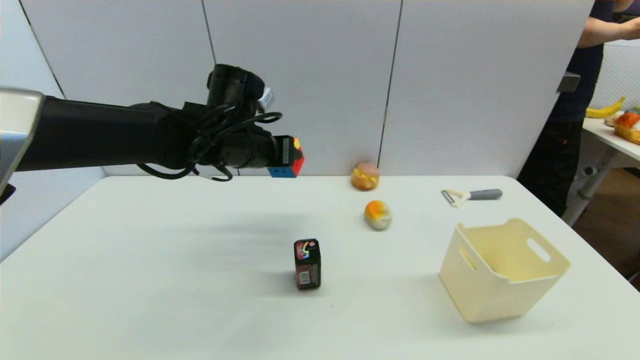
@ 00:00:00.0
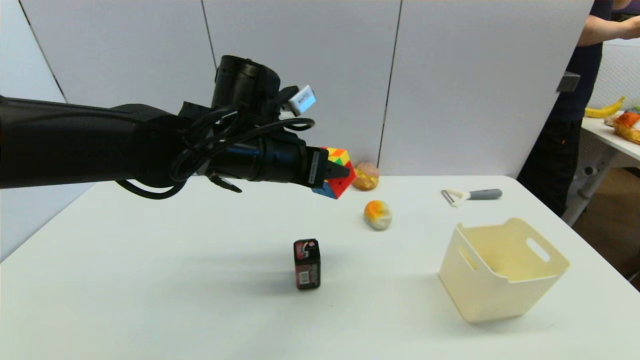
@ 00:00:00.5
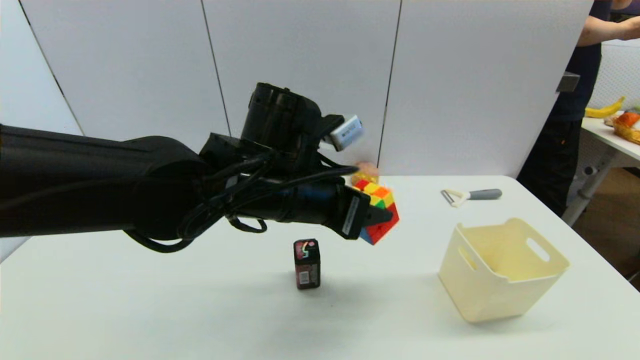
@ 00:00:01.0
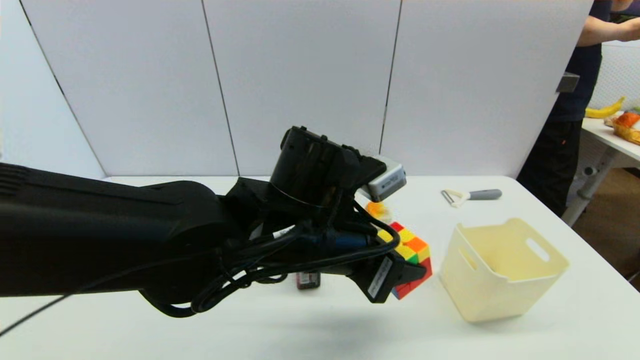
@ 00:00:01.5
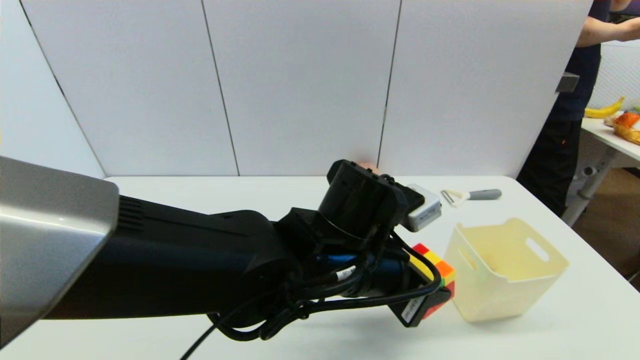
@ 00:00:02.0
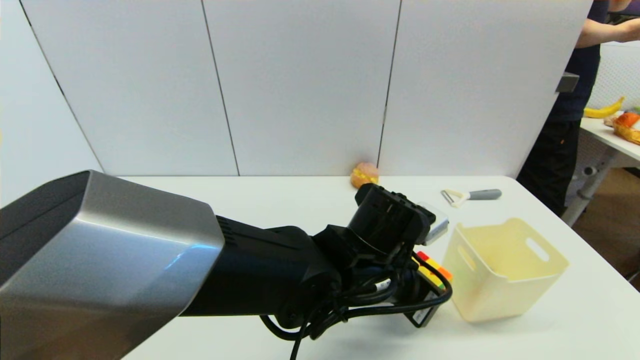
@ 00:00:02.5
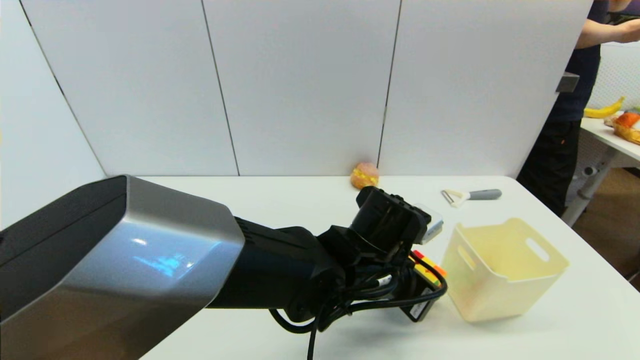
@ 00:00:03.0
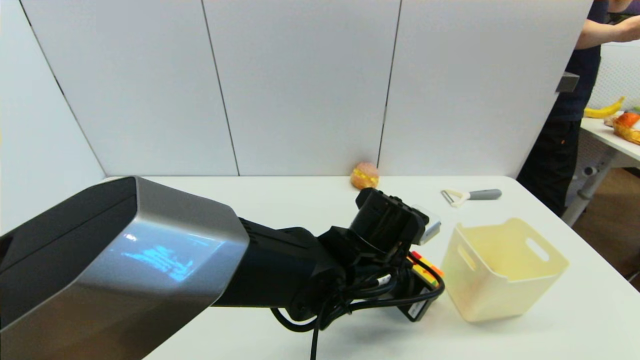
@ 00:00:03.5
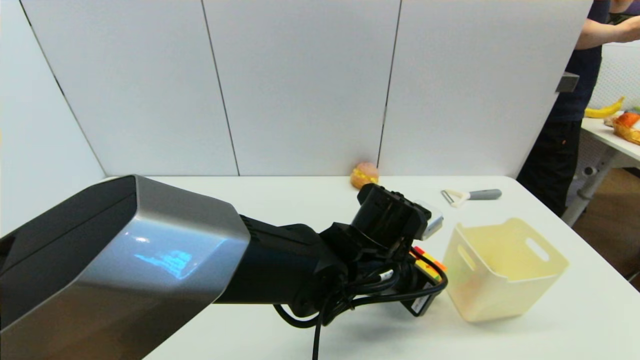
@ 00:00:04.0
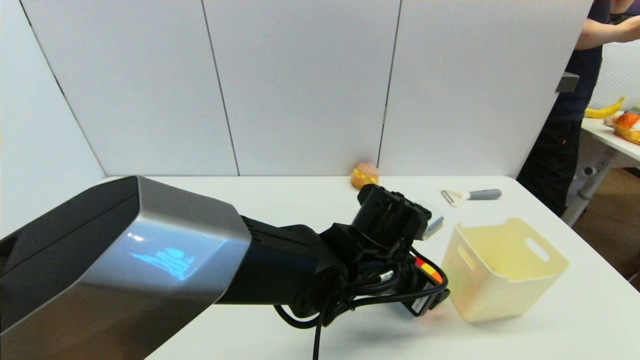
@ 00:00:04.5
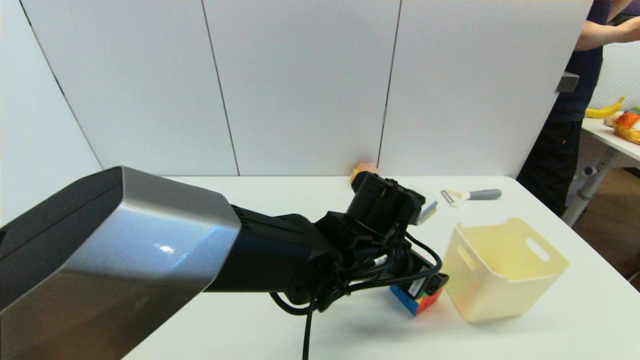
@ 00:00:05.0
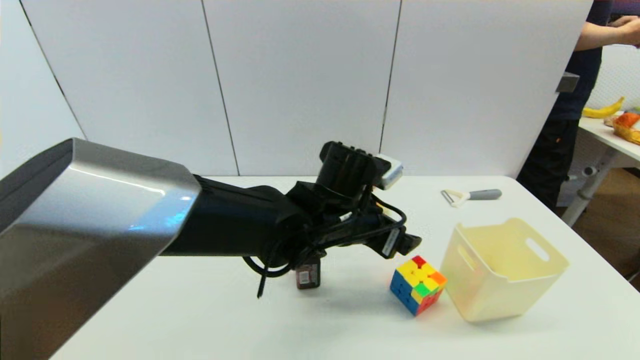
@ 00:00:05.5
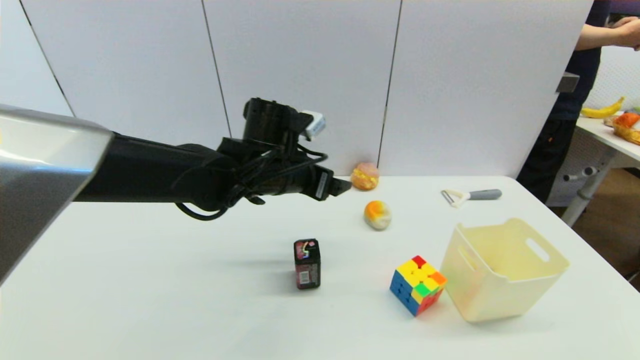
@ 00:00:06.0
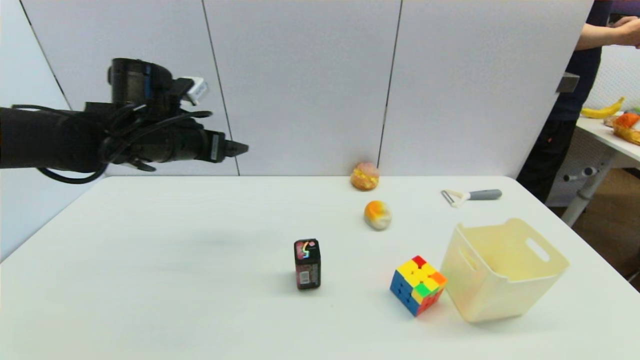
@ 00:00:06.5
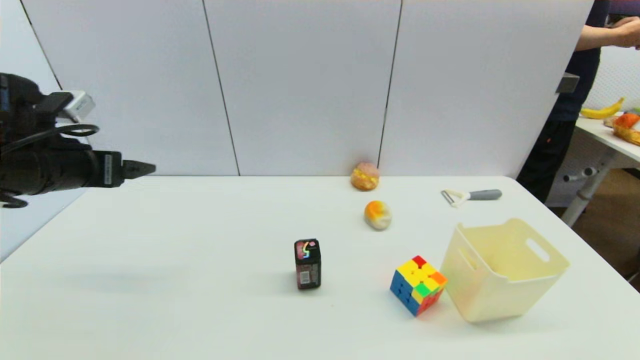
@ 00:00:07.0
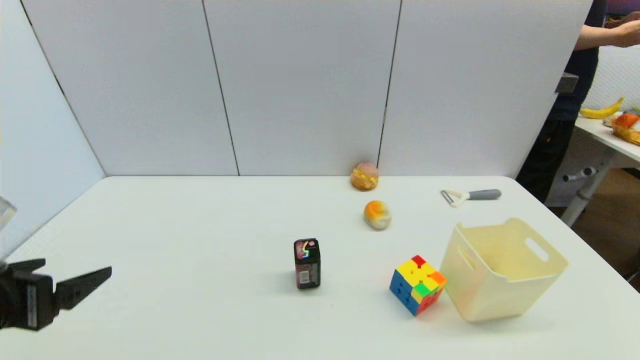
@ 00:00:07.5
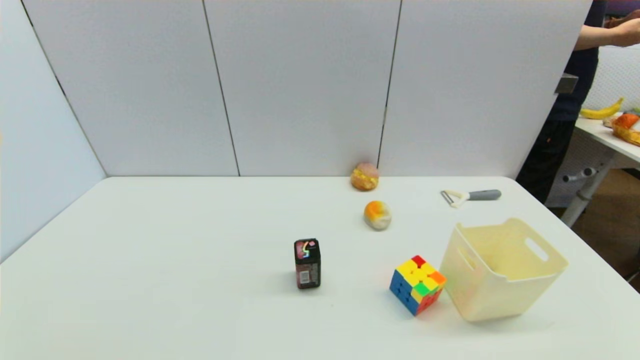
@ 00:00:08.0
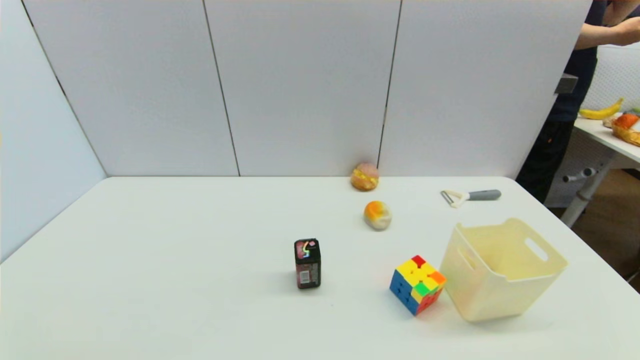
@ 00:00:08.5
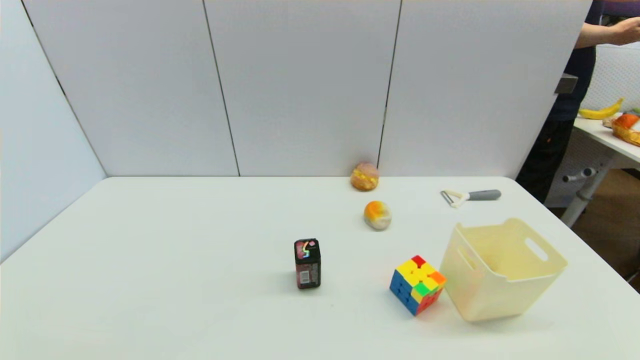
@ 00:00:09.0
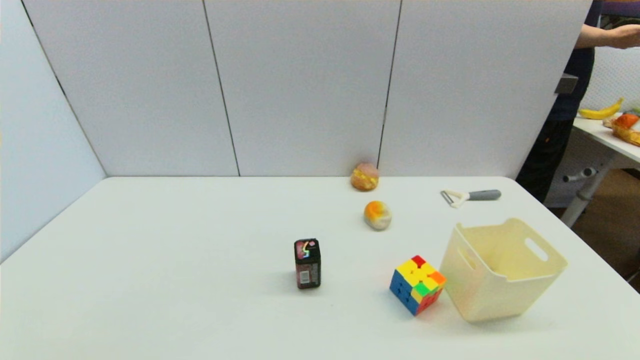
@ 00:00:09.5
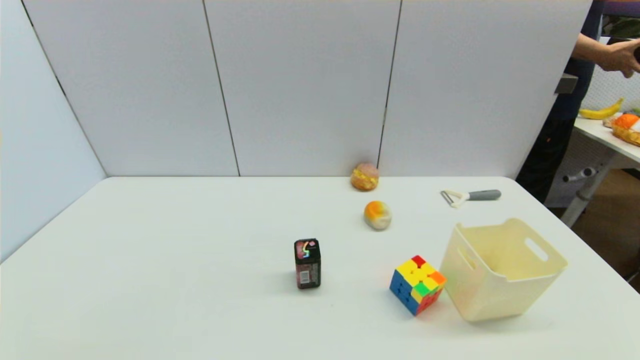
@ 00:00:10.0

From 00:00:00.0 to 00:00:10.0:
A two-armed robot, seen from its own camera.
Step, from 00:00:00.0 to 00:00:05.0: Place the magic cube on the table with left gripper.
From 00:00:00.0 to 00:00:02.0: The left gripper shifts about 20 cm backward, to the right and downward.
From 00:00:02.0 to 00:00:04.0: The left gripper moves about 5 cm.
From 00:00:04.0 to 00:00:06.0: The left gripper travels to the left, forward and upward by roughly 15 cm, and opens.
From 00:00:06.0 to 00:00:08.0: The left gripper travels backward and to the left by roughly 40 cm.
